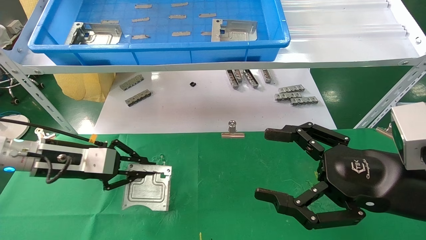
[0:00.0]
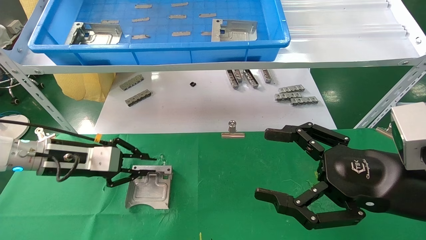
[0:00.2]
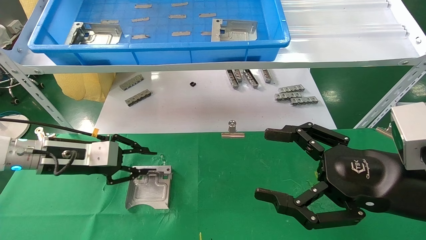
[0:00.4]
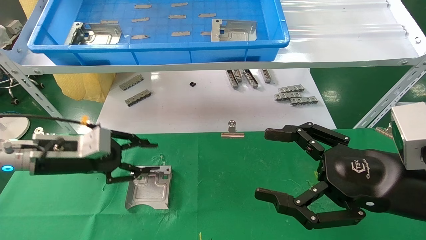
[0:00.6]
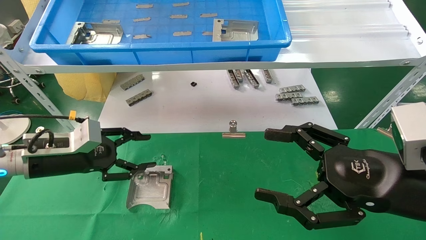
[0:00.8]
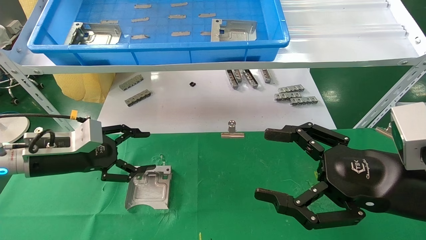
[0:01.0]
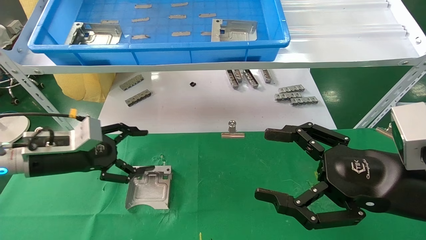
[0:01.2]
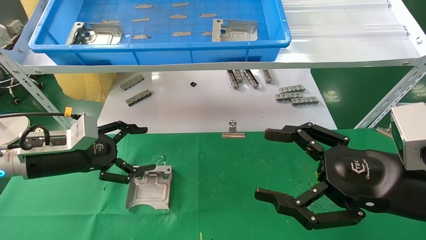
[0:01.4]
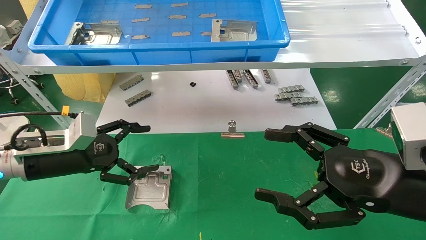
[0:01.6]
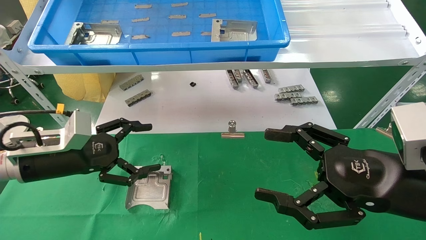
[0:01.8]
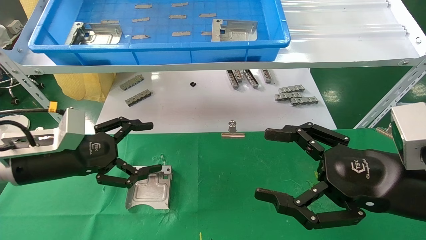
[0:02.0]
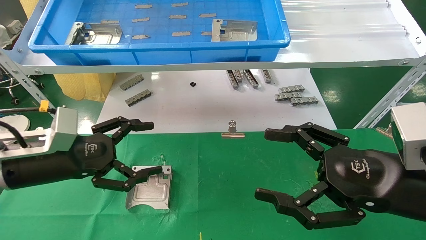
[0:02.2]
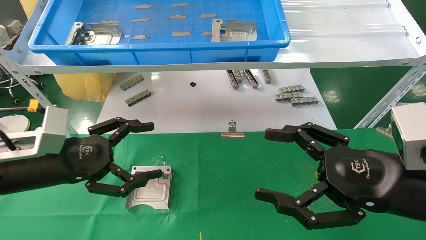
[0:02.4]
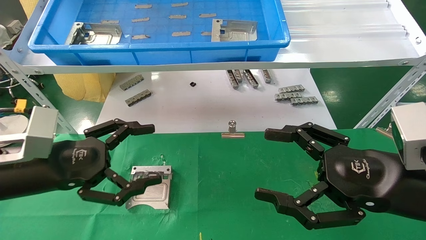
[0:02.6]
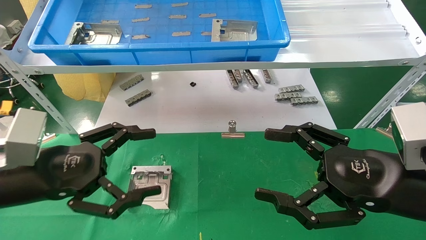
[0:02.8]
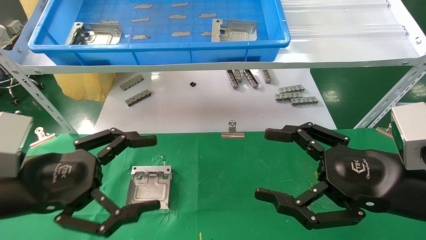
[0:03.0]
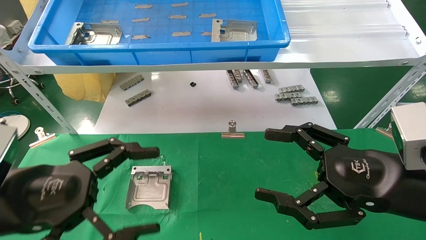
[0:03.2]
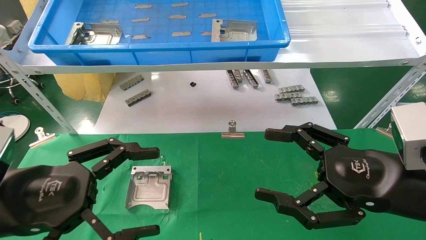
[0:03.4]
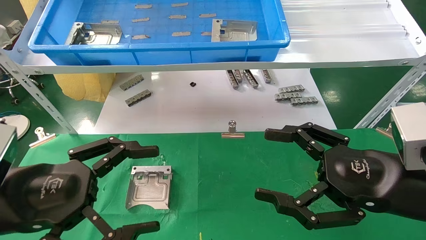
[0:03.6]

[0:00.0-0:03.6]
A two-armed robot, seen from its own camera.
Task of the whole recording: use the mechanical arm to pick up the parts and place them on the table.
0:00.0 to 0:01.8: The left gripper opens.
0:01.8 to 0:03.6: The left gripper heads backward, covering some 15 cm.

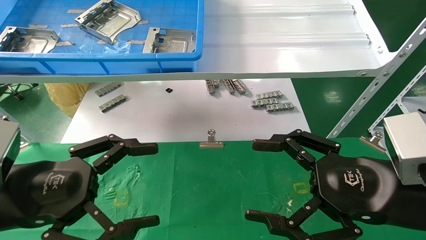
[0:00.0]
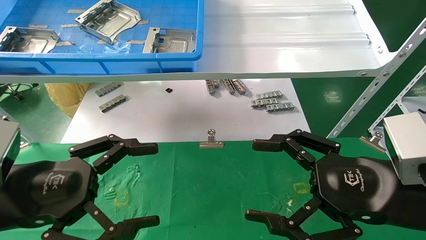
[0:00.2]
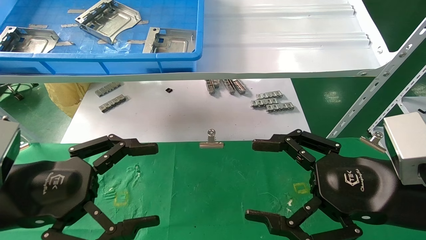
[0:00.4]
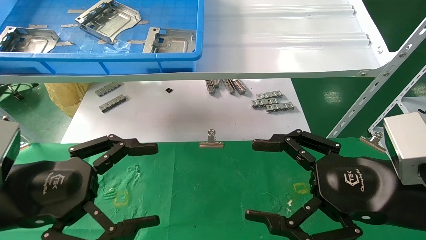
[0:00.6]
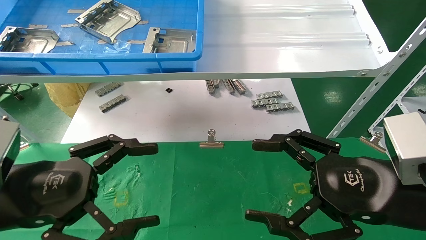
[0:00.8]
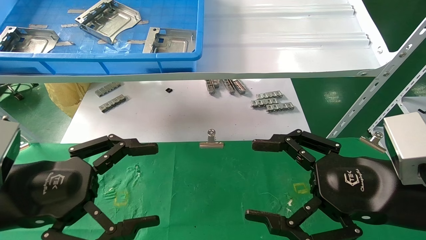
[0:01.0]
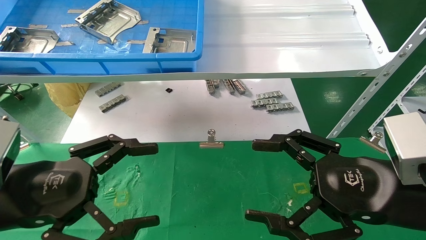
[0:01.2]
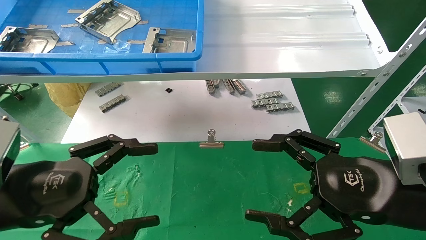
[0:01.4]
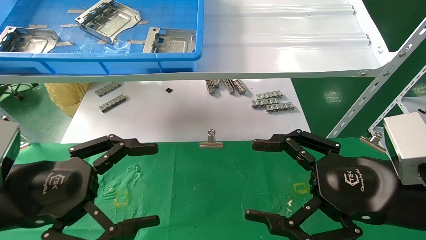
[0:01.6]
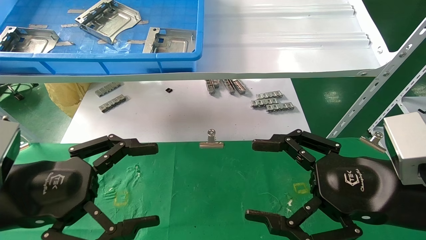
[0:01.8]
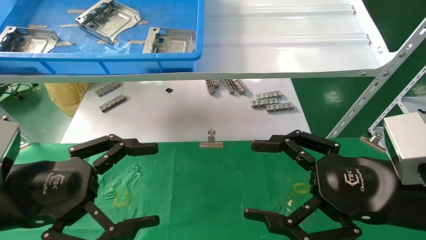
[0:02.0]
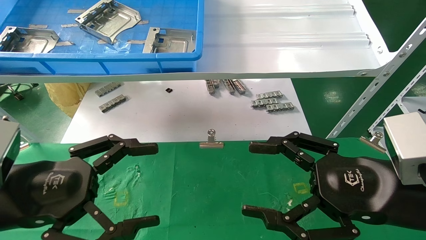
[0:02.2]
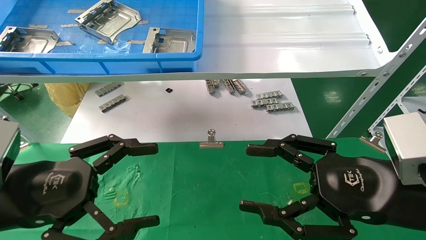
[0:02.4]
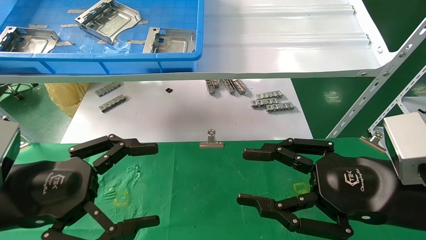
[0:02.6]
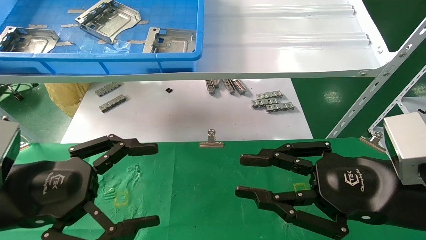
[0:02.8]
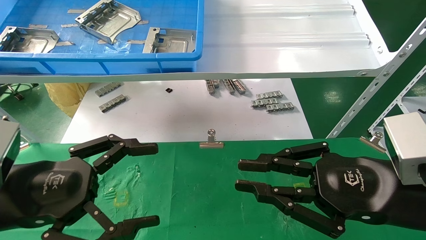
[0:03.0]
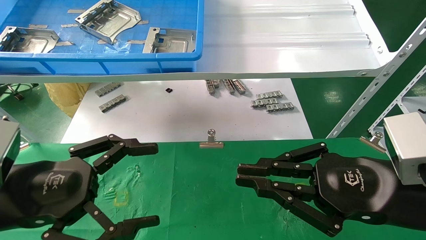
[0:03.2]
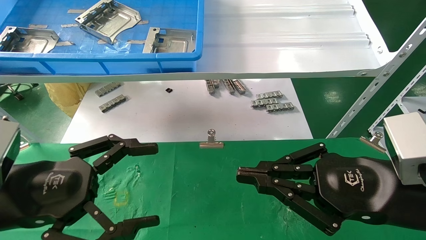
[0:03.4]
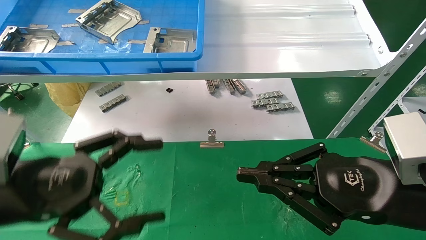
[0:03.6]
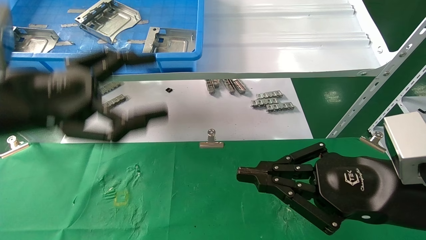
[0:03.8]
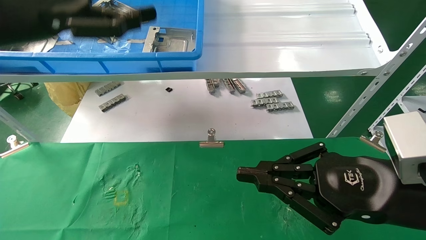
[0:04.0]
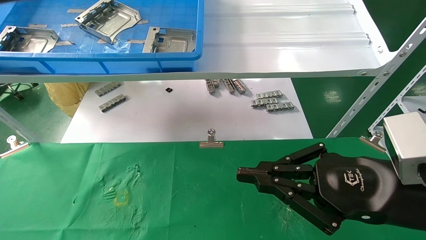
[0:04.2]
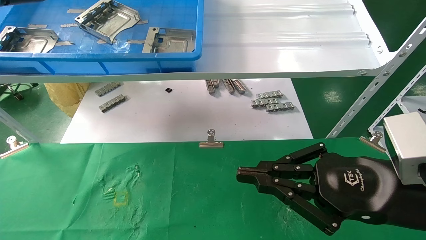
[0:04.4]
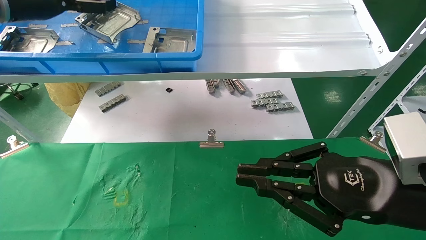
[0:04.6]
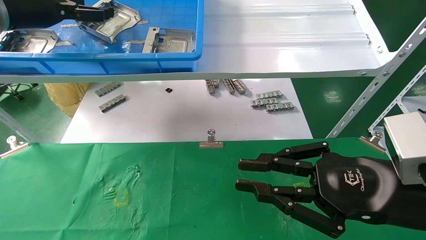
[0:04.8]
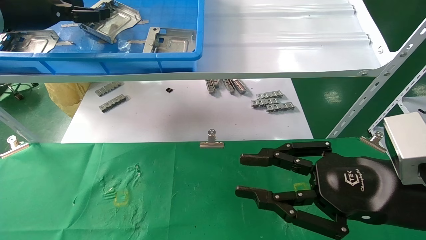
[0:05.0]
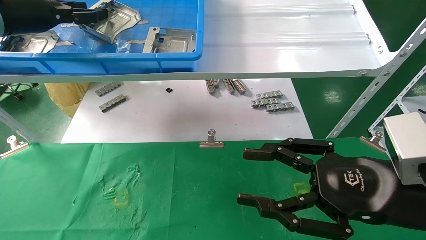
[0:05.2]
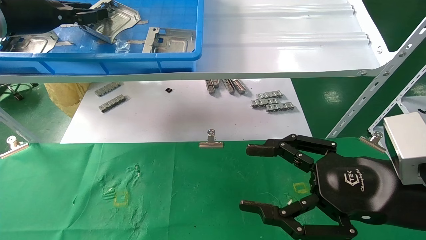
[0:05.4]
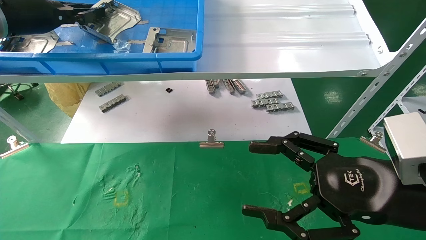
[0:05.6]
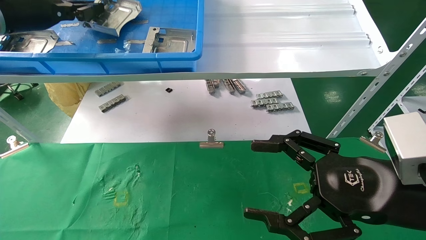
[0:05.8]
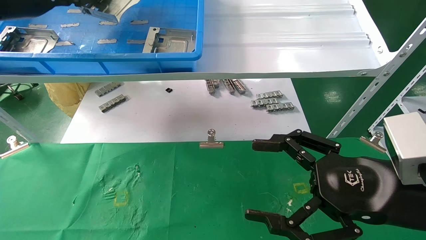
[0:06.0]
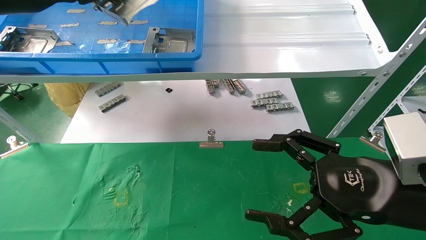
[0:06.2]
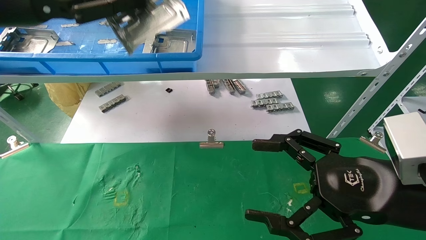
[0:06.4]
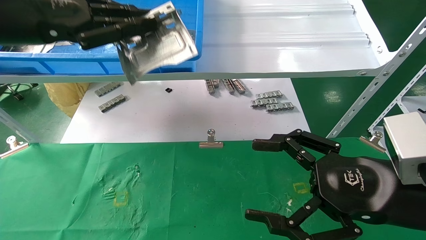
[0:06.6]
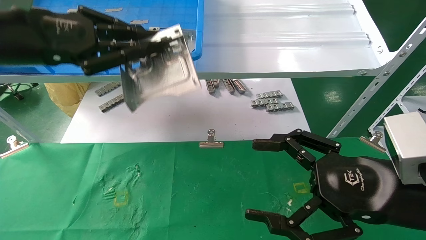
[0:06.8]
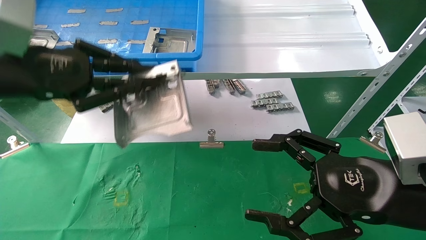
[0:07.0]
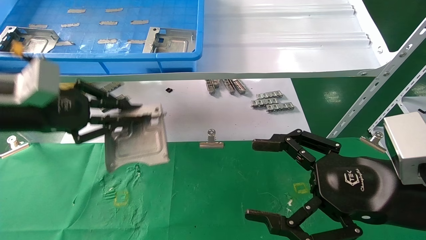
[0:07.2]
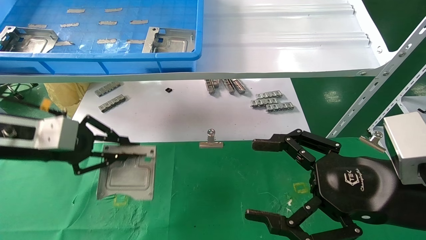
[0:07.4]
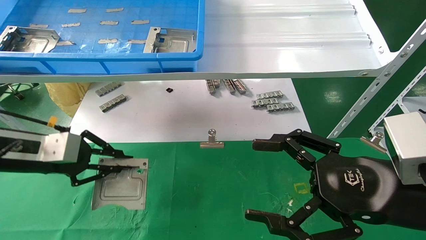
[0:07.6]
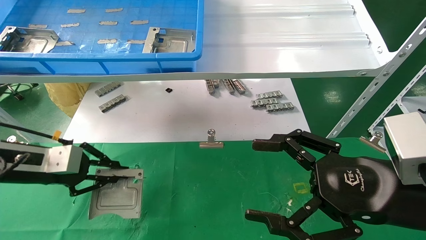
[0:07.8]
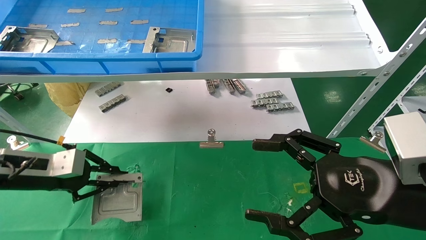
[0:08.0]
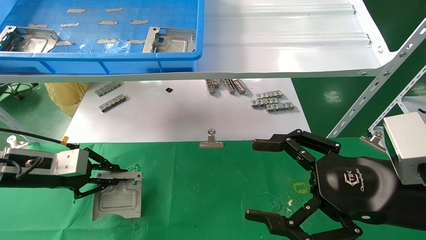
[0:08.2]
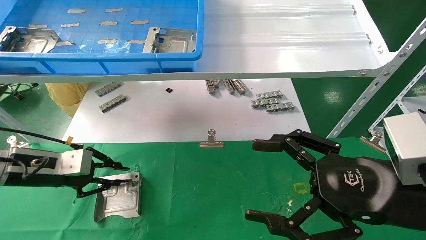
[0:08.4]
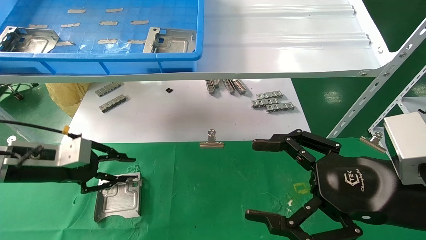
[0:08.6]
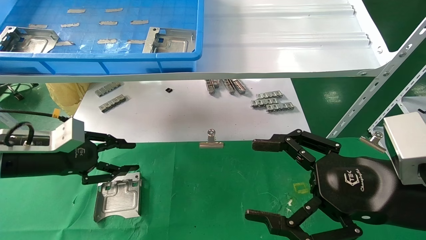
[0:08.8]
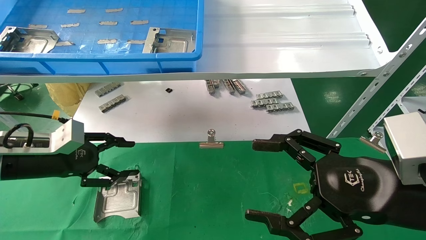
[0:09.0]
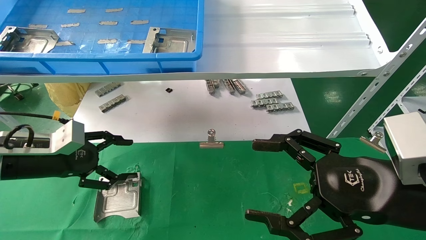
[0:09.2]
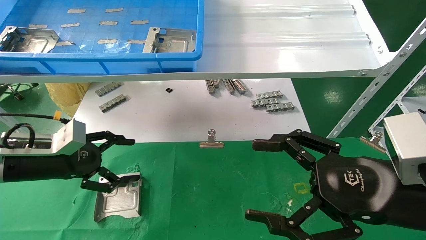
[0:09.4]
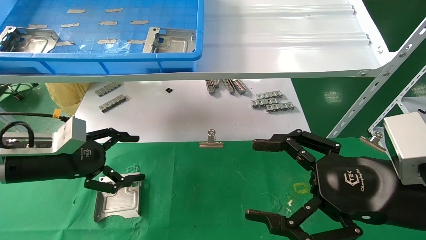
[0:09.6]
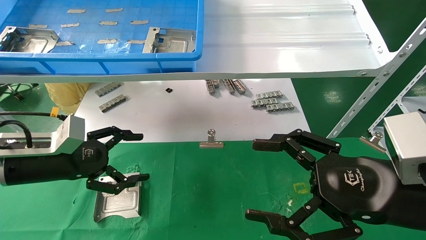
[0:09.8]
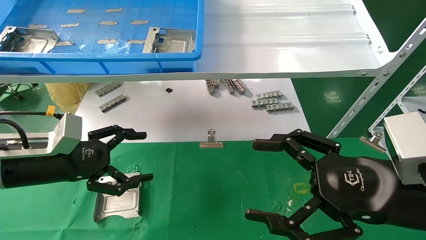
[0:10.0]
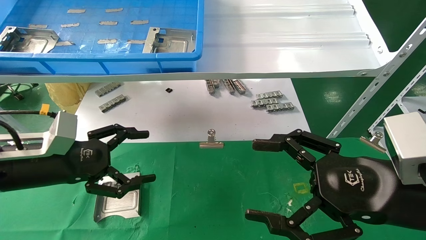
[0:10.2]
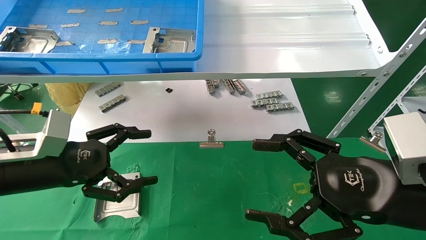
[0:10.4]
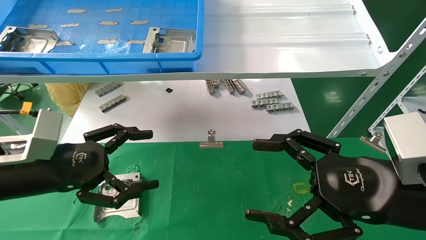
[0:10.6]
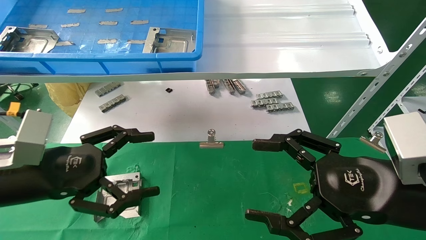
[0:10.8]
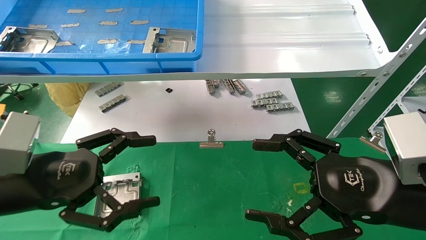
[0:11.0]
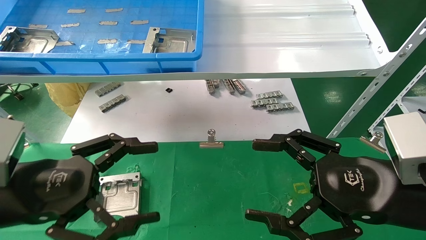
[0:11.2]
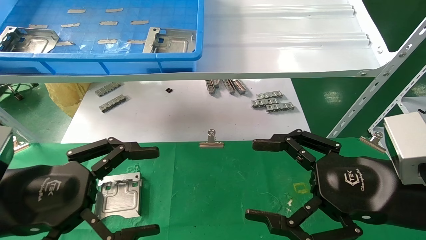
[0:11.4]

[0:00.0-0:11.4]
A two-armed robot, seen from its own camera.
Task of the whole recording: use the mechanical arm to pick up the parts and place them on the table.
Step, 0:03.8 to 0:05.6: Pick up the hard drive bracket from the feeding area.
Step, 0:05.8 to 0:08.4: Place the hard drive bracket into the box.
0:00.0 to 0:01.4: Neither gripper changes place.
0:01.4 to 0:02.8: The right gripper closes up.
0:02.8 to 0:04.2: The left gripper goes approximately 30 cm upward and forward. Meanwhile the right gripper closes.
0:04.2 to 0:05.6: The right gripper opens, while the left gripper is displaced forward by roughly 5 cm, and closes up.
0:05.6 to 0:07.2: The left gripper is displaced downward and backward by about 15 cm.
0:07.2 to 0:08.6: The left gripper heads downward and forward, covering about 15 cm.
0:08.6 to 0:10.0: The left gripper shifts by approximately 5 cm, and opens.
0:10.0 to 0:11.4: The left gripper travels backward by approximately 10 cm.

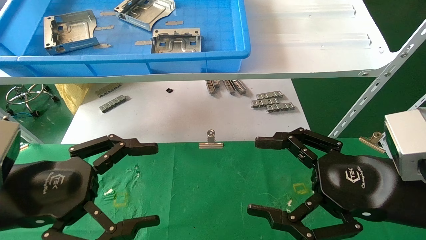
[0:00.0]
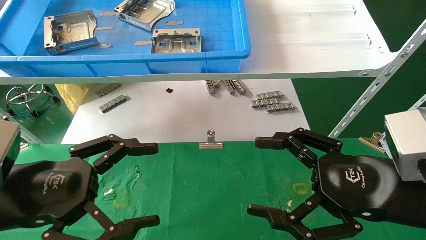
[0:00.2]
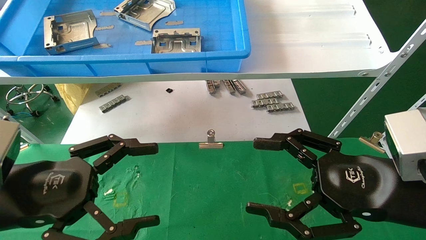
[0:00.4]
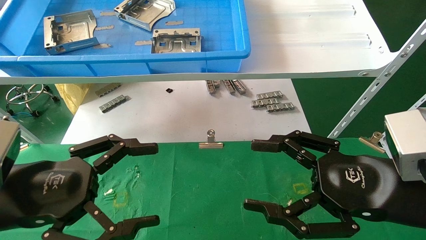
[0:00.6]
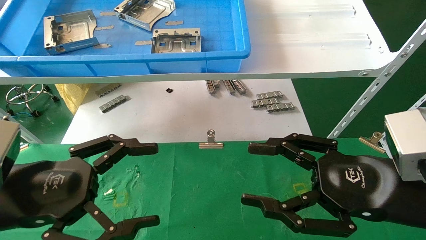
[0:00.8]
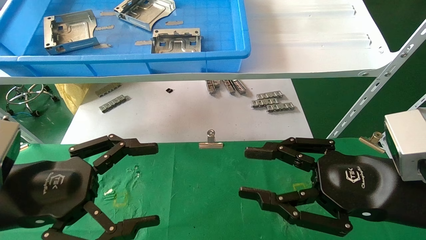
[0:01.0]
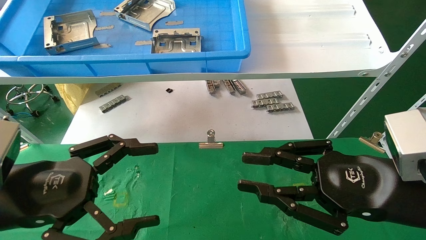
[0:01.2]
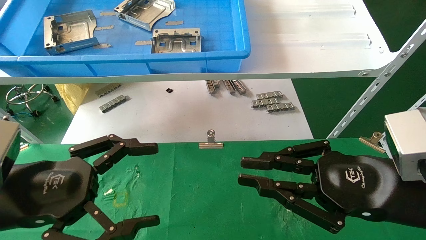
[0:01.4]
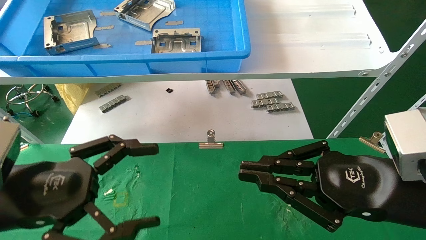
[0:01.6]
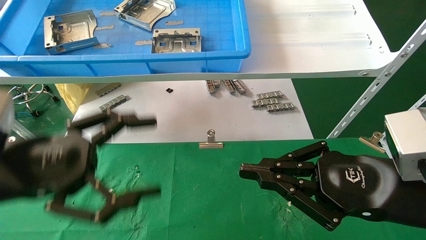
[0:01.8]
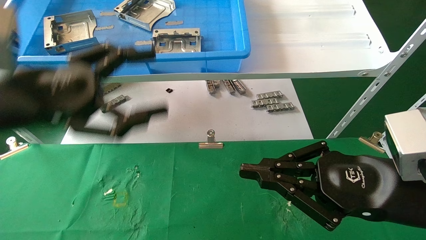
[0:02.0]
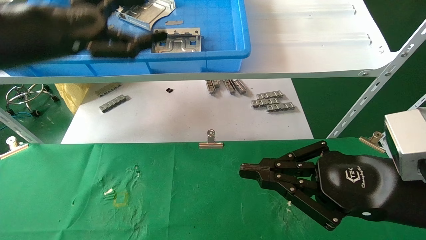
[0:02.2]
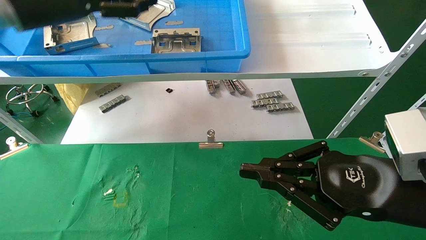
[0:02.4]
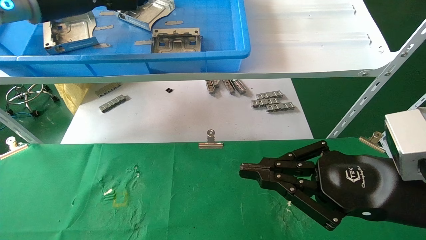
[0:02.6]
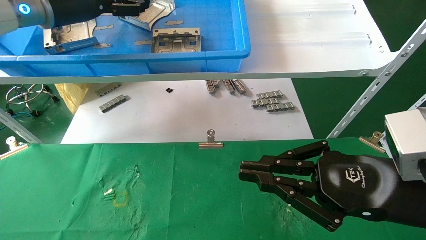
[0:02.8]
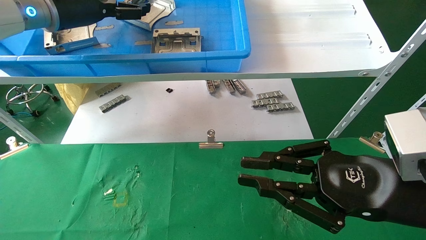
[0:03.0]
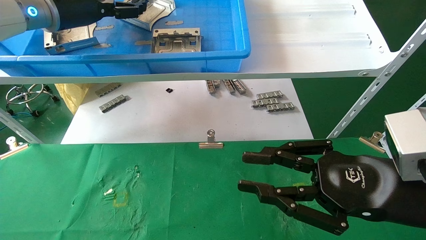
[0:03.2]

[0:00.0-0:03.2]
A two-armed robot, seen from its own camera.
Task of the whole recording: use the mechanical arm to pick up the parts and place them on the table.
0:00.0 to 0:01.6: The right gripper closes.
0:01.6 to 0:03.2: The left gripper goes some 30 cm forward and upward.
